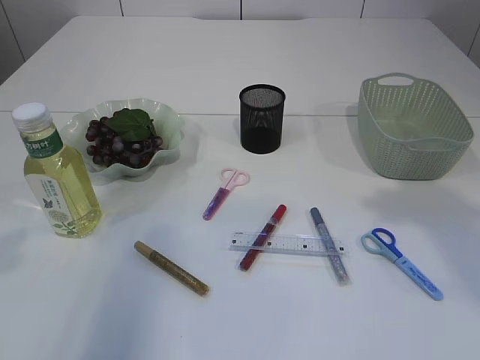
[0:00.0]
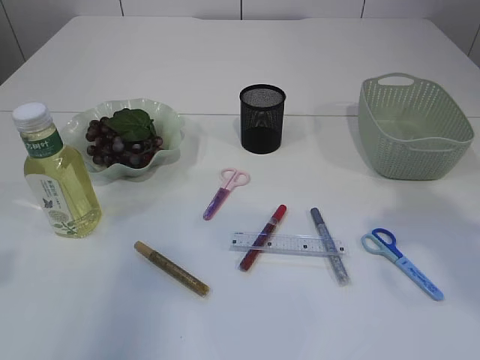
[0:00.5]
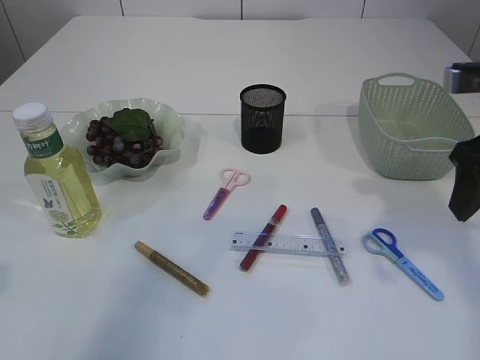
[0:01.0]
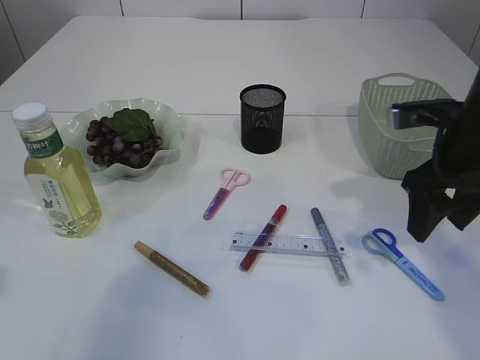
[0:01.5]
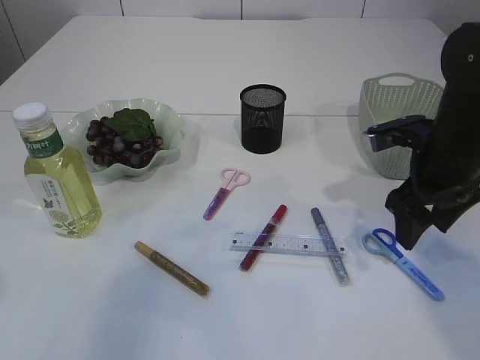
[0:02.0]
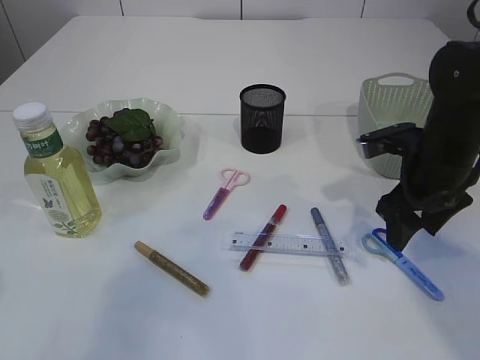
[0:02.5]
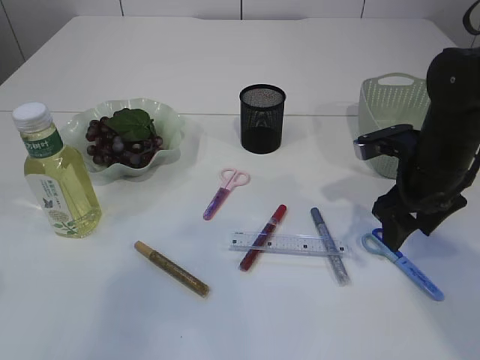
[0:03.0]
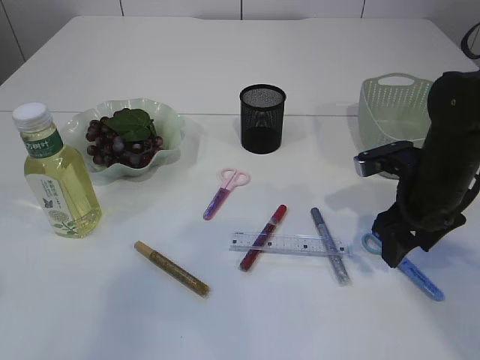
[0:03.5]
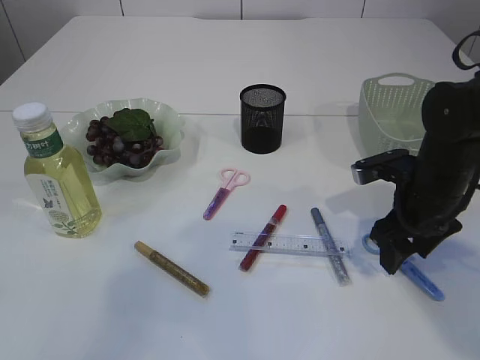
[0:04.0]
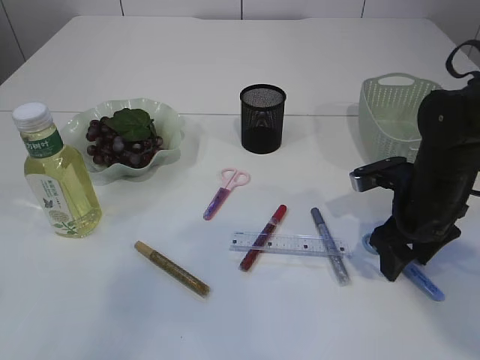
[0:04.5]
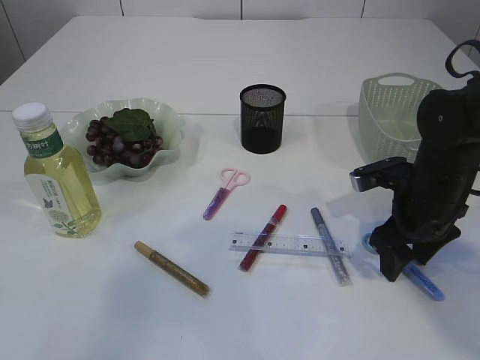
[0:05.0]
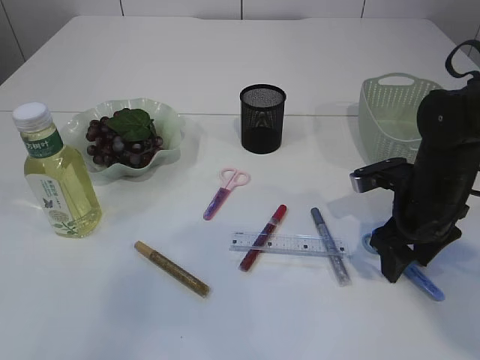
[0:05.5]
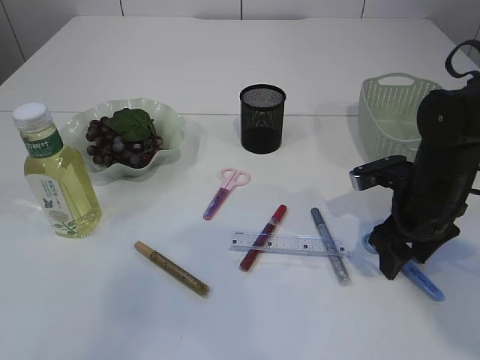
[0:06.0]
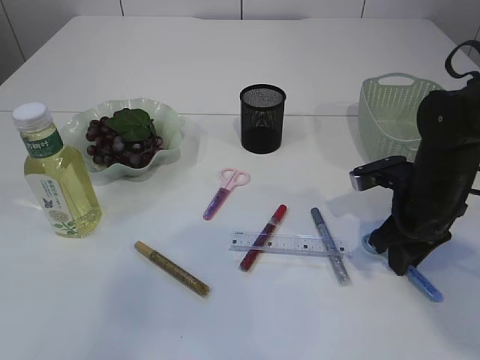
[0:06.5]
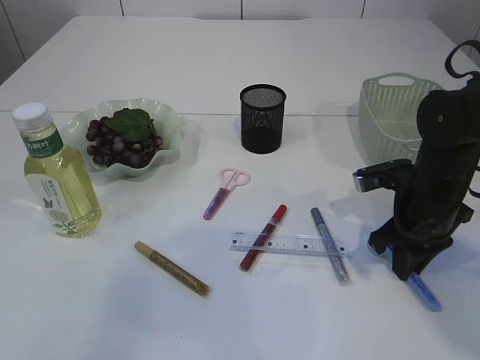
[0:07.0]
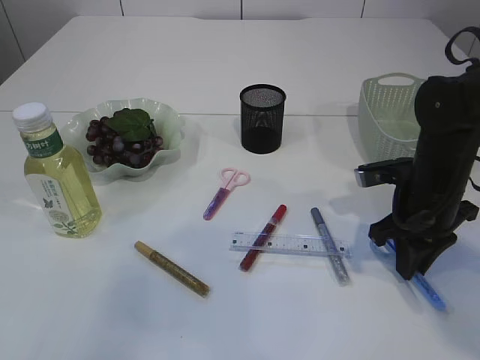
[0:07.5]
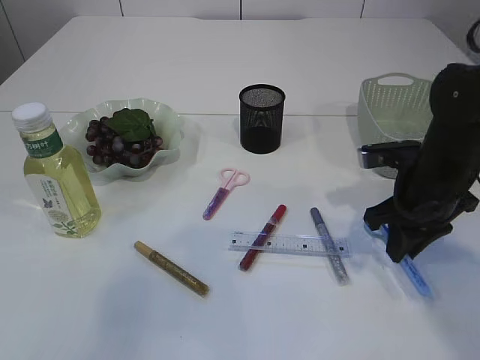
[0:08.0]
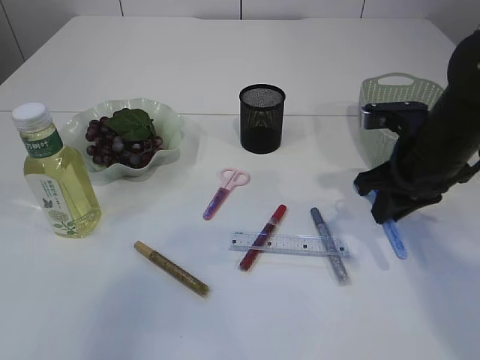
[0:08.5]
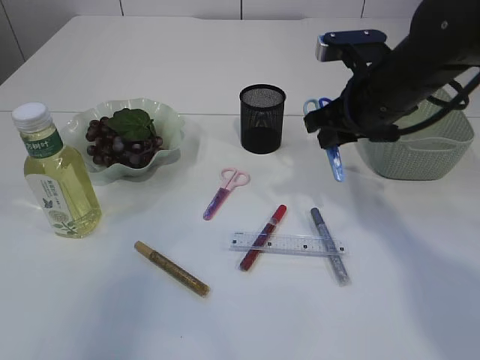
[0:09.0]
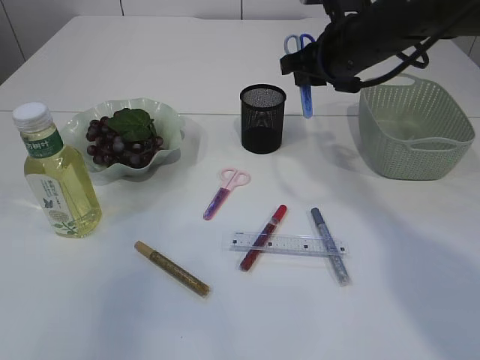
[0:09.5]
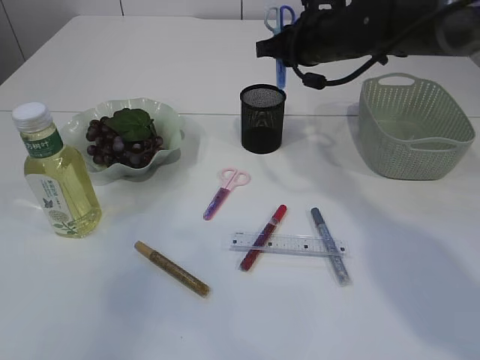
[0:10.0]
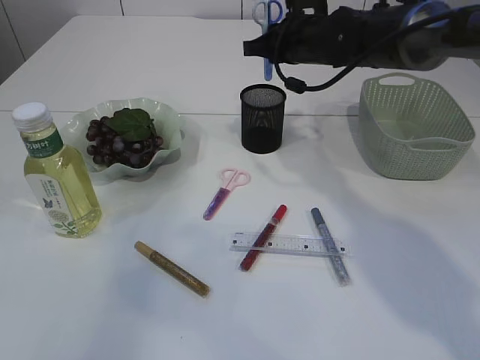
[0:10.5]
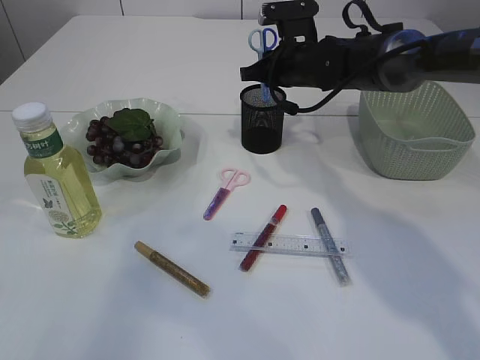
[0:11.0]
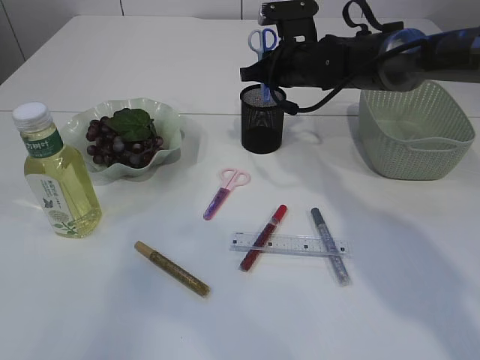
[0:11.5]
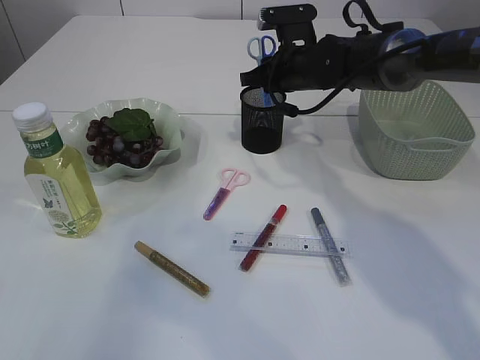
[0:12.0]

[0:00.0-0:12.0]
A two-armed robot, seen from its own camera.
Step, 0:00.0 to 0:08.0: pick up the blue scissors.
0:00.0 to 0:02.0: The right gripper shifts roughly 20 cm downward and forward.
0:02.0 to 0:04.0: The right gripper goes about 5 cm downward.
0:04.0 to 0:06.0: Both grippers stay about where they are.
0:06.0 to 0:08.0: The right gripper closes up.
0:08.0 to 0:10.0: The right gripper travels forward, upward and to the left by about 20 cm.
0:10.0 to 0:12.0: The right gripper moves downward, roughly 5 cm.

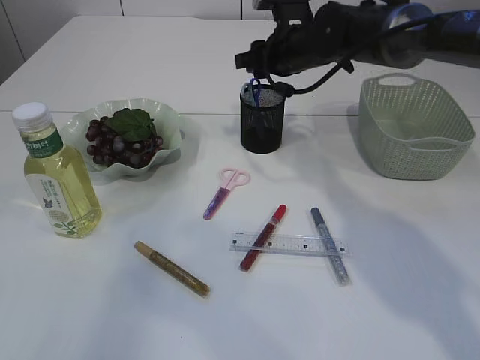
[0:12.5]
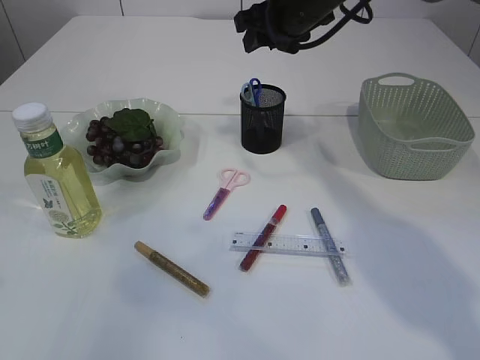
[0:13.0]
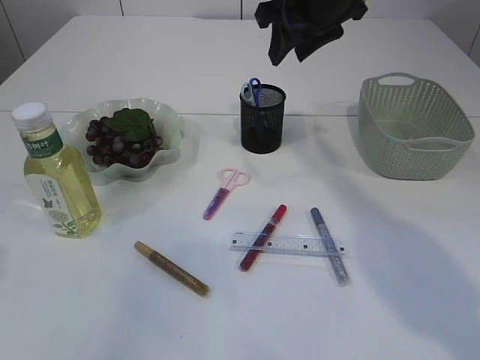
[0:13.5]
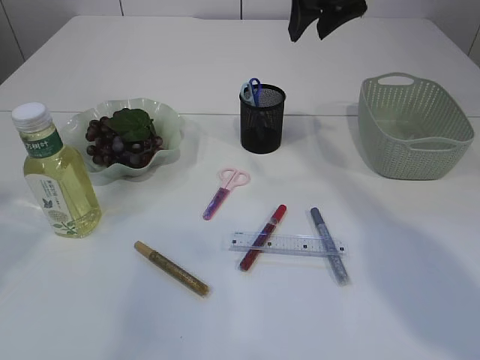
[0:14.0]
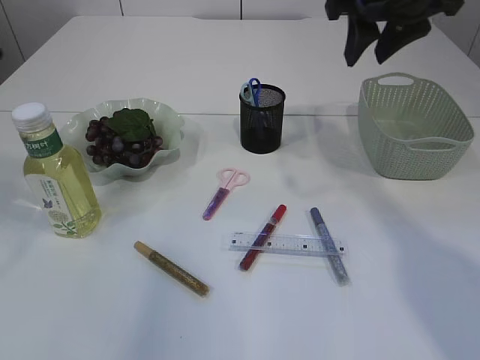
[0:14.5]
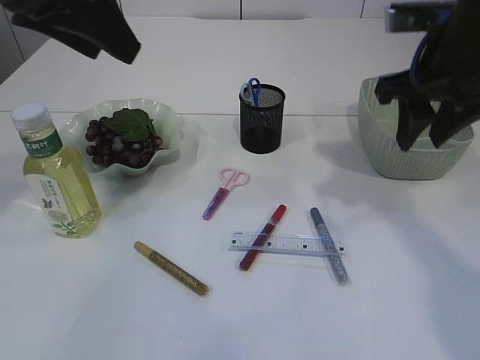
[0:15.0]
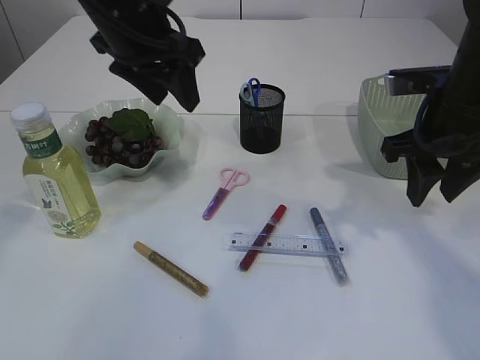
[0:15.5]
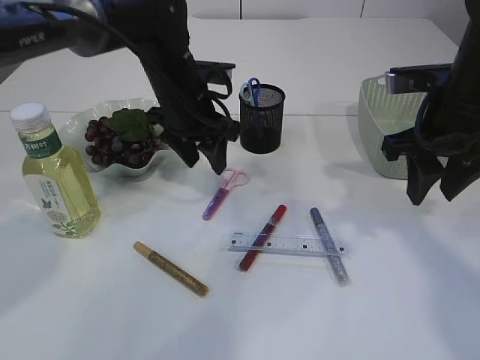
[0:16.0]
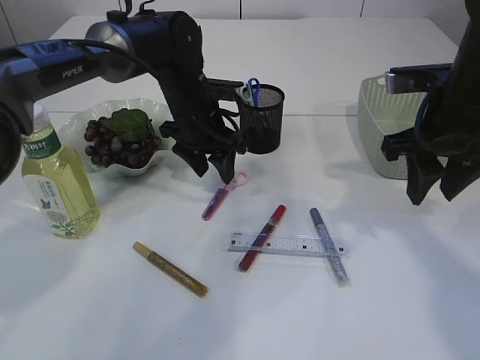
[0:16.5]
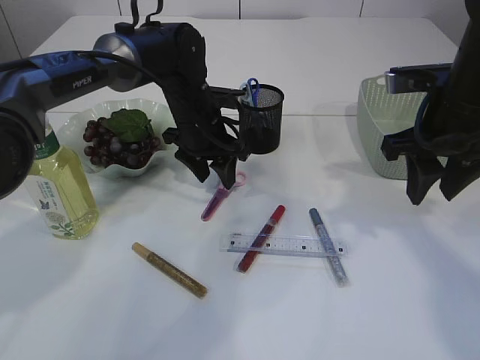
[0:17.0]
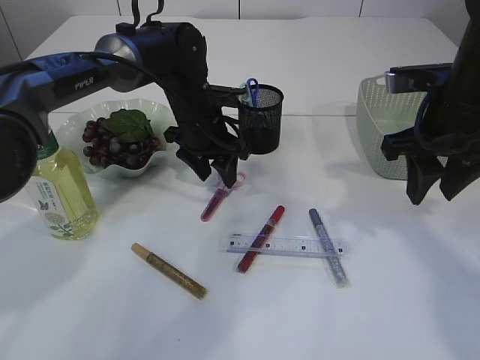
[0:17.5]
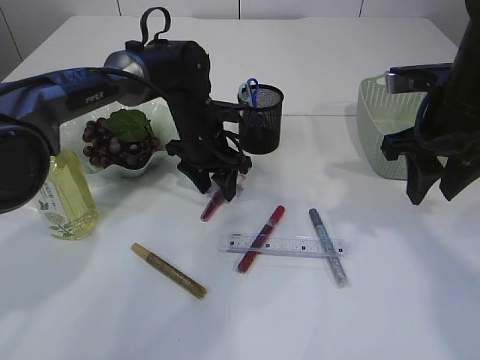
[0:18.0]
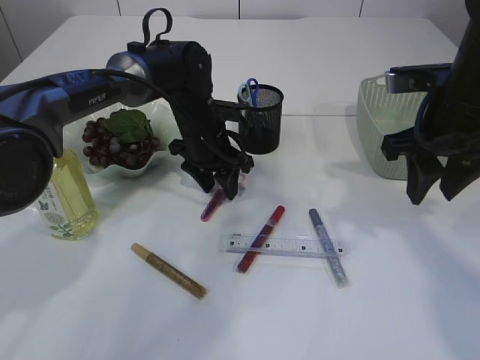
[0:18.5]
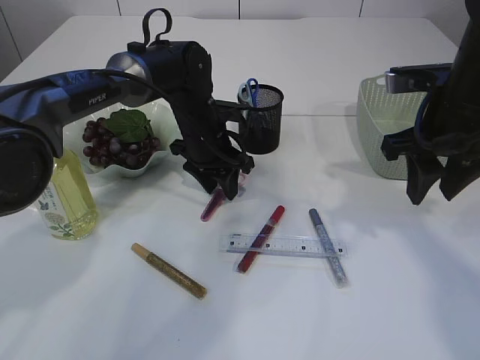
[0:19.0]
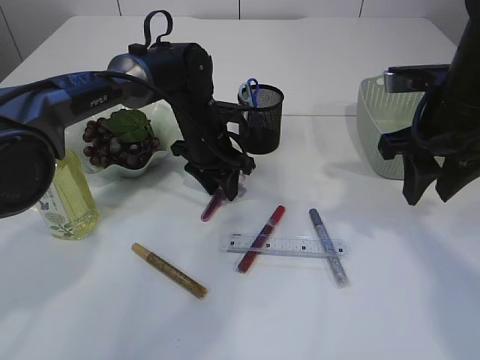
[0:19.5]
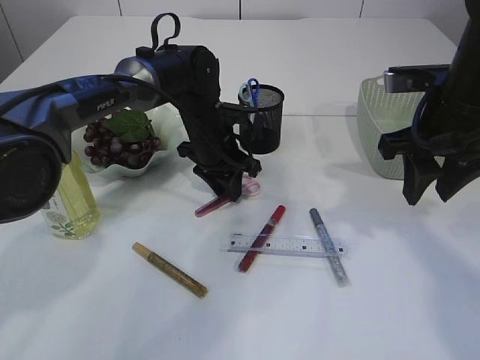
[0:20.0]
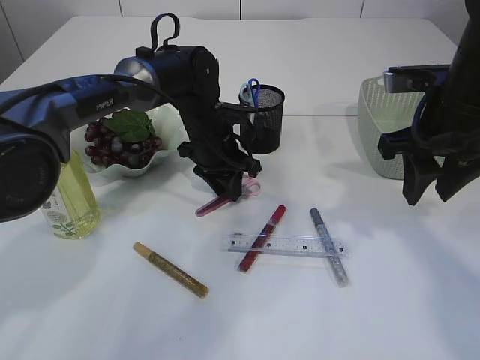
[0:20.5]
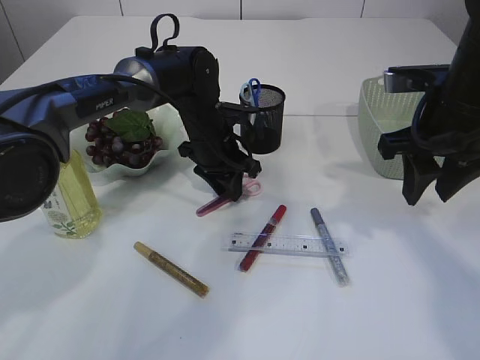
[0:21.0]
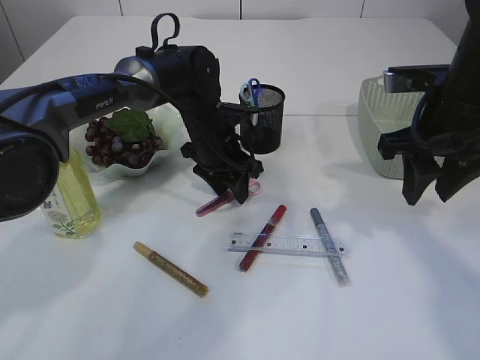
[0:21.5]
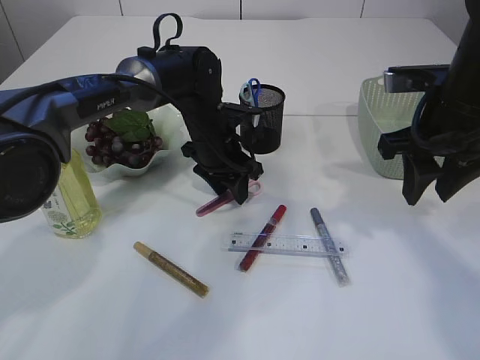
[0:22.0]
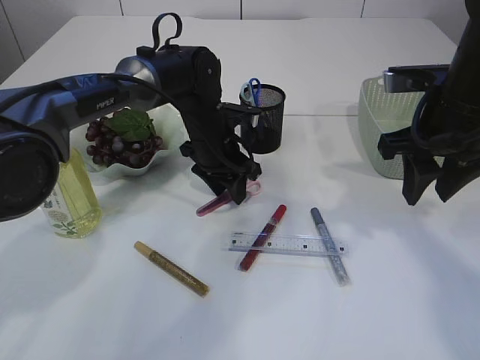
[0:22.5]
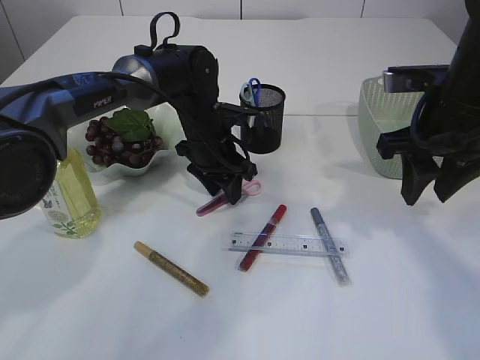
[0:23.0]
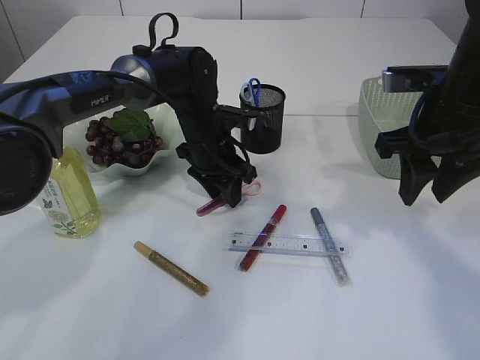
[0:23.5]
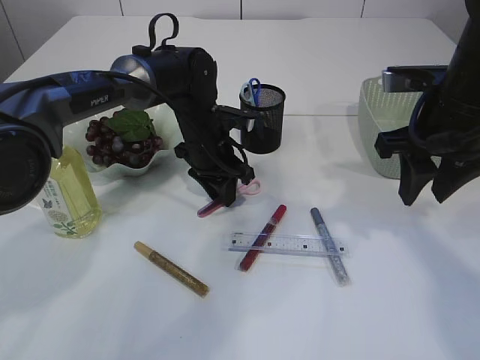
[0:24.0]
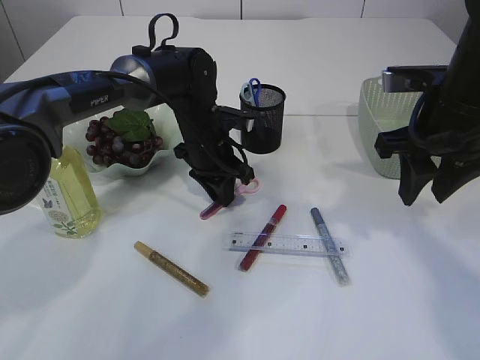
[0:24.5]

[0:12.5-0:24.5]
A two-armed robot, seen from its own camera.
0:12.5 to 0:14.5: The right gripper shifts some 20 cm upward, backward and to the right; the left gripper is displaced forward and upward by approximately 10 cm.
0:14.5 to 0:16.5: The right gripper moves downward and backward, roughly 10 cm. Meanwhile the left gripper is displaced downward, forward and to the right by approximately 35 cm.
0:16.5 to 0:20.5: The grippers move only a little.
0:20.5 to 0:22.5: Both grippers stay put.
0:22.5 to 0:24.5: The left gripper closes up.

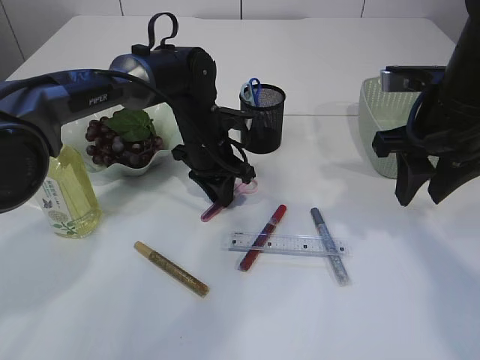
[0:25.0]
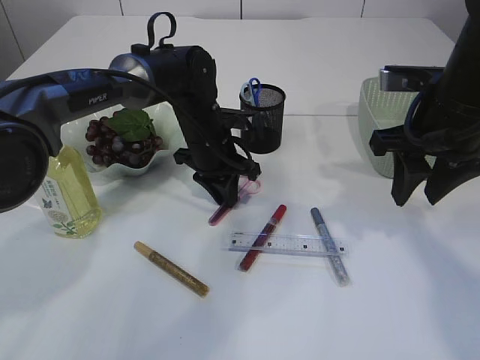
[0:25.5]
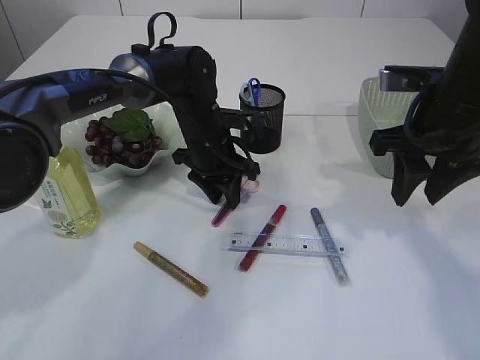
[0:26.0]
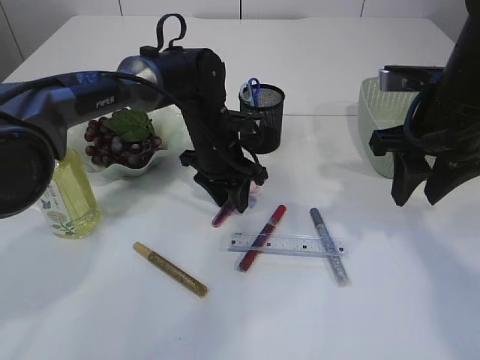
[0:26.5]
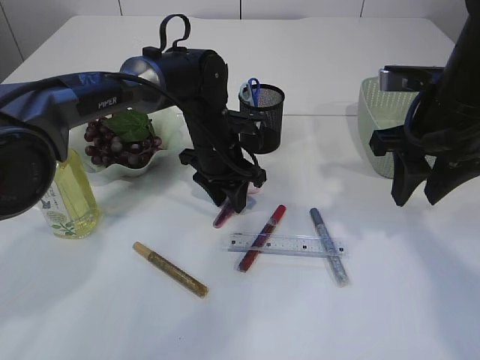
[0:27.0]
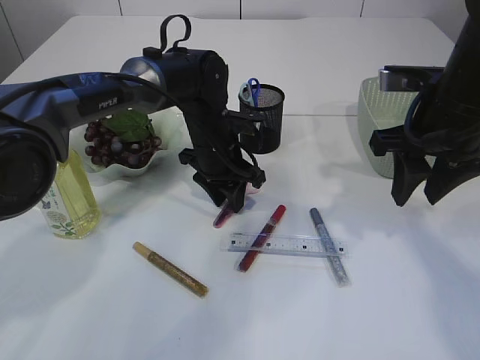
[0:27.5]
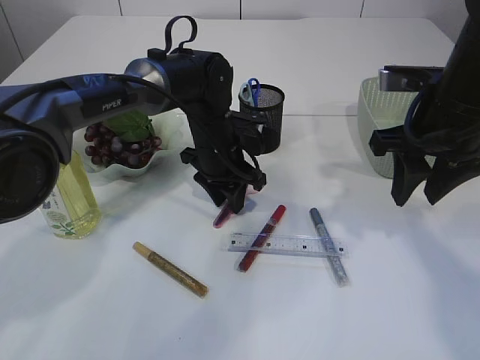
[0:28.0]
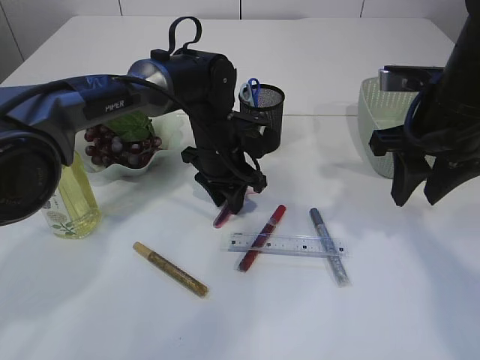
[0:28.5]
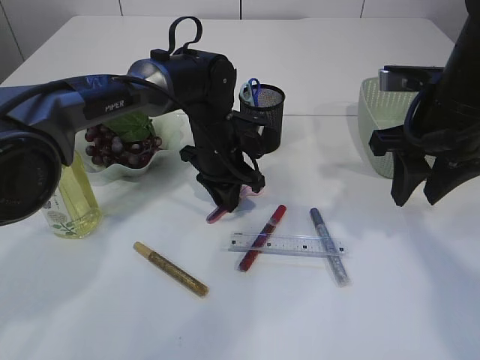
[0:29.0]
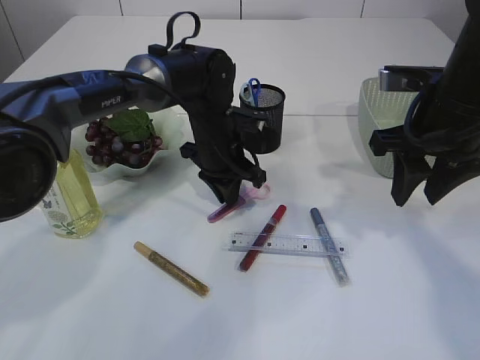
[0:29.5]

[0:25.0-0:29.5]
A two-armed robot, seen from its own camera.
0:25.0 to 0:27.0: The left gripper opens up.
0:27.0 to 0:29.5: The left gripper closes.
